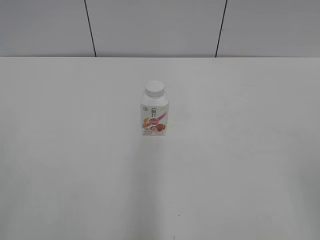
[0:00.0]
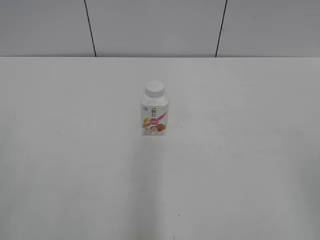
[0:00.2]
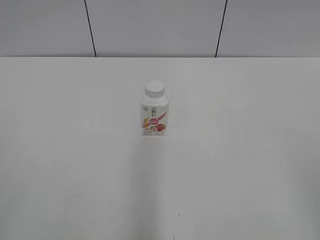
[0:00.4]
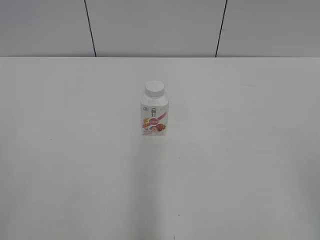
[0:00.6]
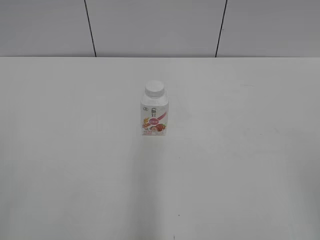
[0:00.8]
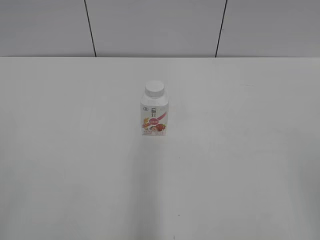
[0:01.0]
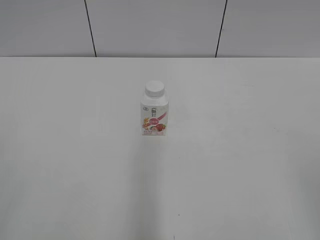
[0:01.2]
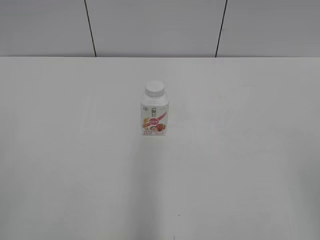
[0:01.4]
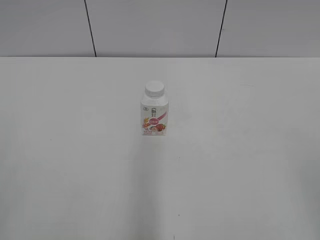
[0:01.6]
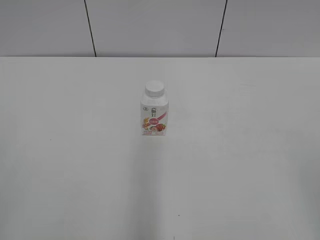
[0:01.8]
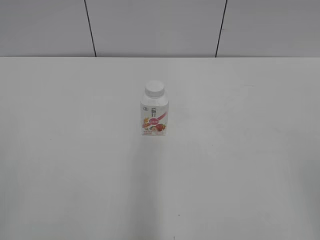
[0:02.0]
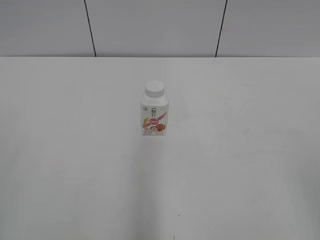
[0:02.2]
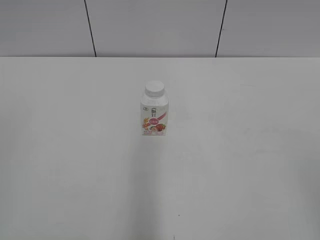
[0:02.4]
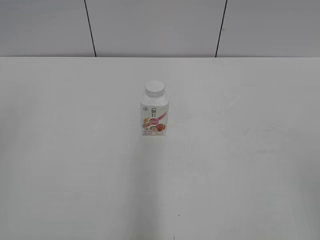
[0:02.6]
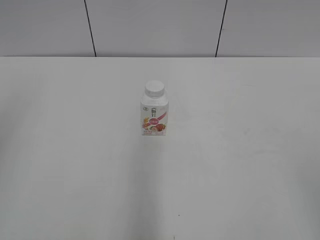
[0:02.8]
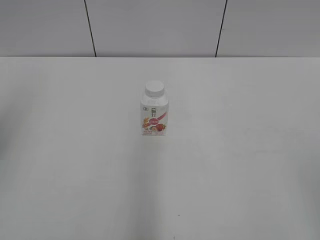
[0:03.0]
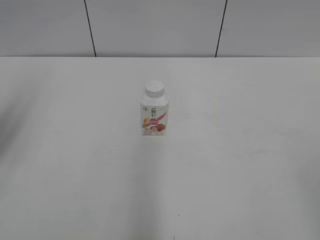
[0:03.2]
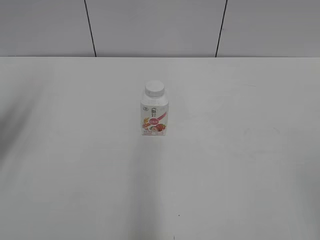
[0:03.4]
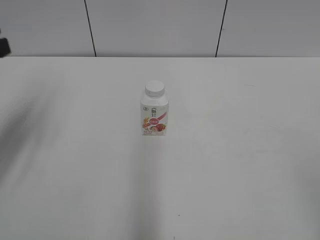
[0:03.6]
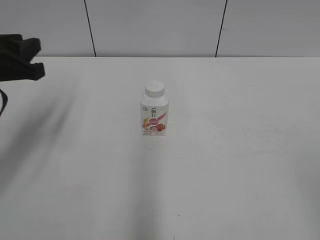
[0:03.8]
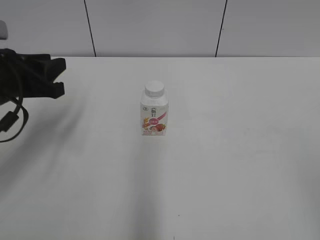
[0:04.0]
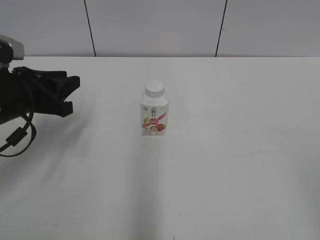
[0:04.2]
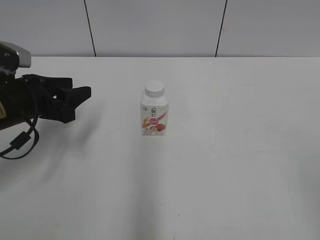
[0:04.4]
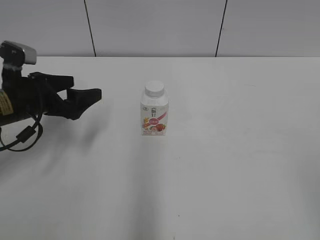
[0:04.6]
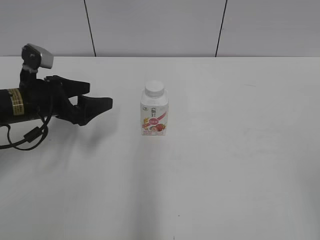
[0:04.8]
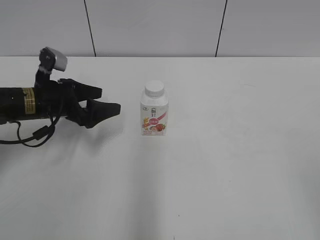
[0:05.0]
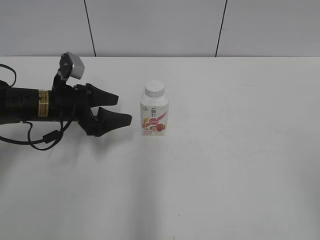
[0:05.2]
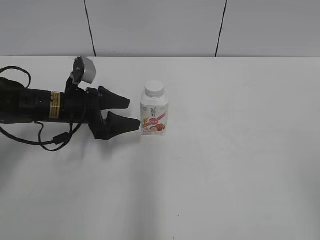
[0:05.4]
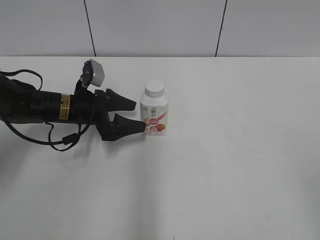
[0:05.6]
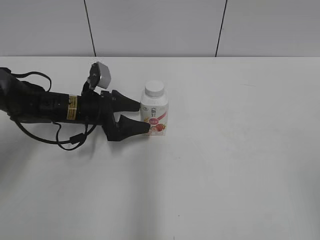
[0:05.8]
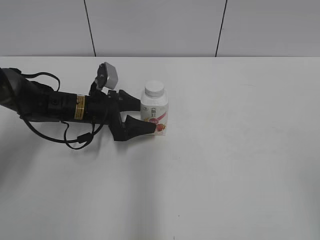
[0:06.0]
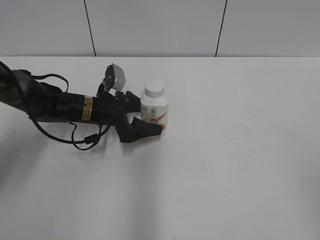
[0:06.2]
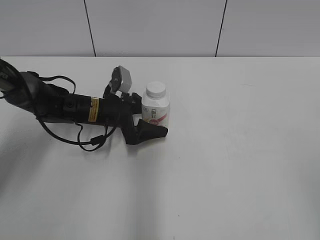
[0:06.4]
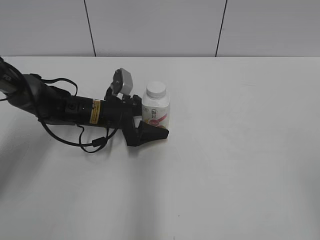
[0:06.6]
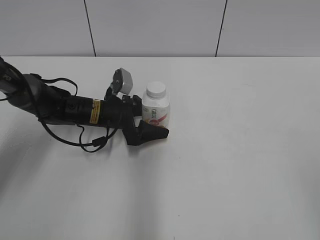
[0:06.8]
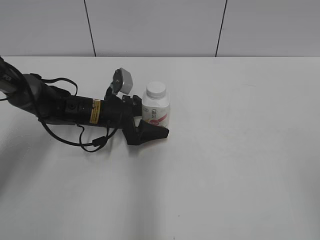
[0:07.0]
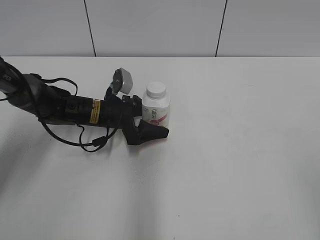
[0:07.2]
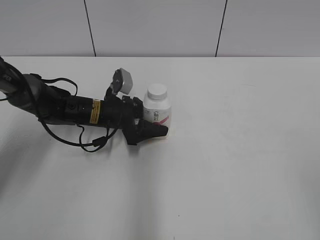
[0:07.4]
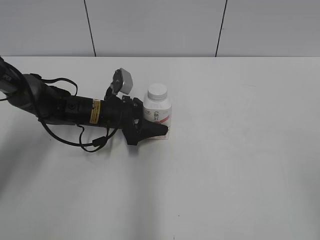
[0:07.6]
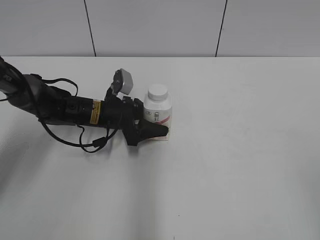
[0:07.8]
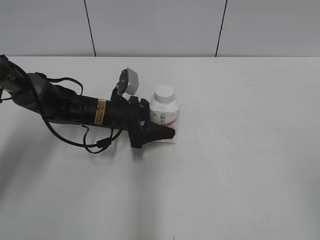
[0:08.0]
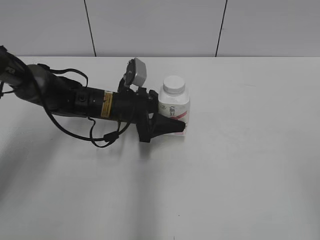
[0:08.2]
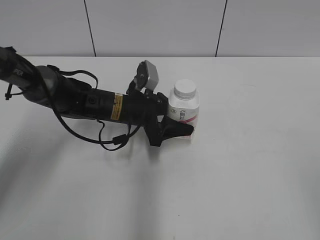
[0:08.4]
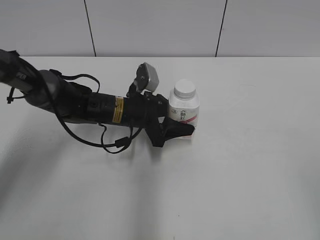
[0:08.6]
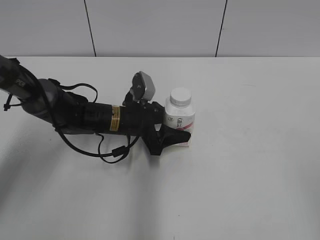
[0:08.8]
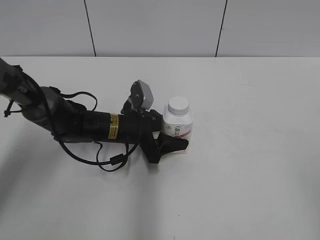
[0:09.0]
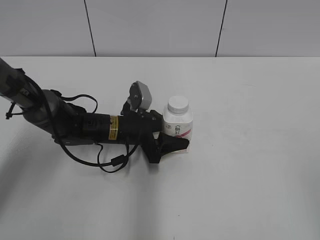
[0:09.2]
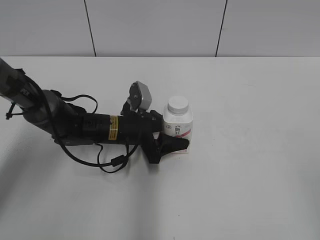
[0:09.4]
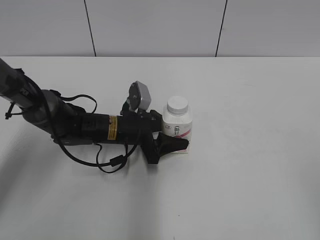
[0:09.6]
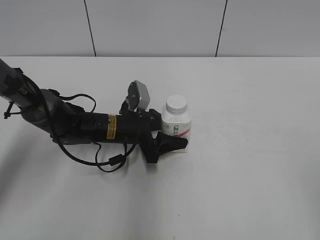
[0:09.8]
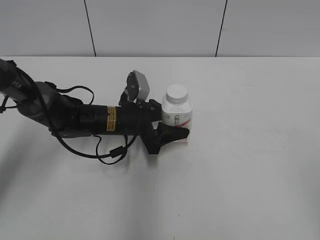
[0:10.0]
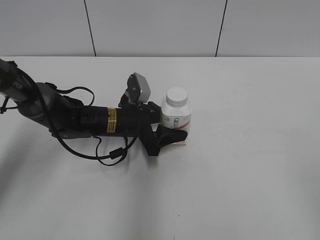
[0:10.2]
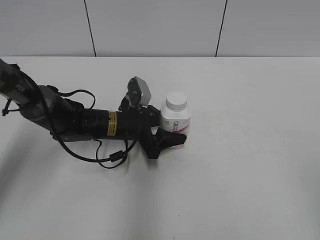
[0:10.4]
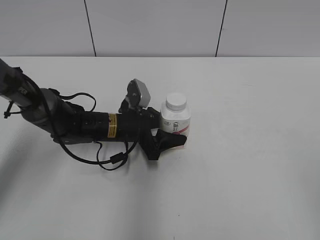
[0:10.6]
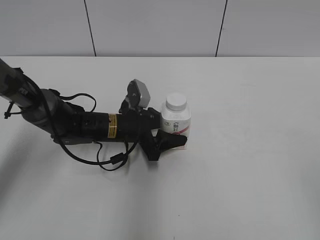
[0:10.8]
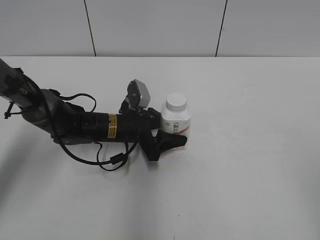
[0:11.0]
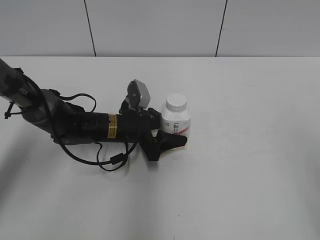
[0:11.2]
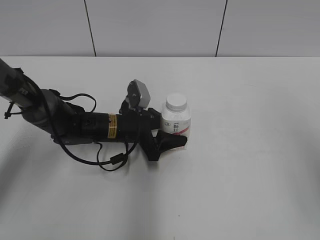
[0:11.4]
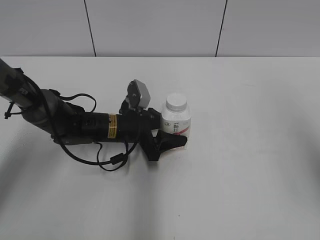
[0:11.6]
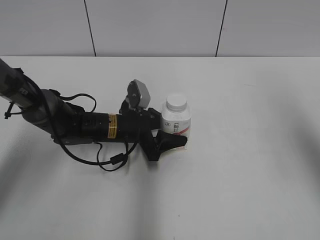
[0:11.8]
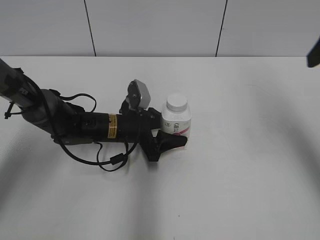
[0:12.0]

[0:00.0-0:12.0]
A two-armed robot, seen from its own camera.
Step, 0:00.0 to 0:07.4: Grab the Yili Changqing with the left hand.
Step, 0:07.6 to 0:11.4: Move the Yili Changqing from left to right.
0:03.0 to 0:04.4: The left gripper shifts about 25 cm downward and forward.
0:04.4 to 0:06.0: The left gripper goes about 15 cm forward, downward and to the right, and opens its fingers.
0:06.0 to 0:07.6: The left gripper closes.
0:07.6 to 0:09.0: The left gripper moves some 5 cm.
0:09.0 to 0:10.4: The grippers make only small movements.
0:10.4 to 0:12.0: The right gripper is displaced forward by some 25 cm.

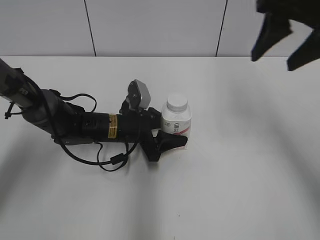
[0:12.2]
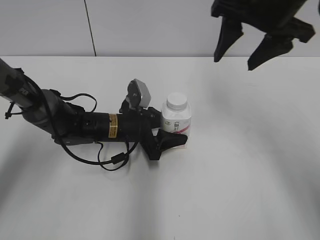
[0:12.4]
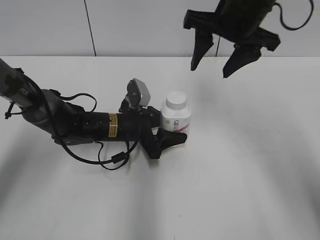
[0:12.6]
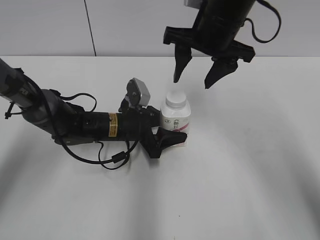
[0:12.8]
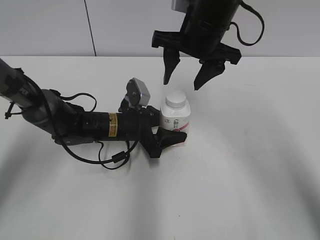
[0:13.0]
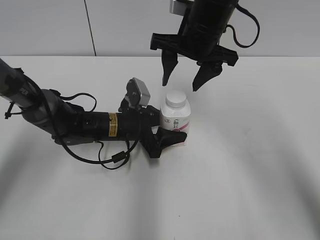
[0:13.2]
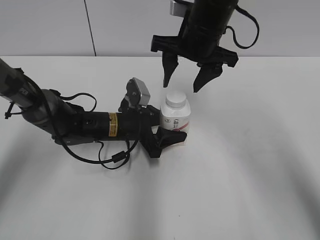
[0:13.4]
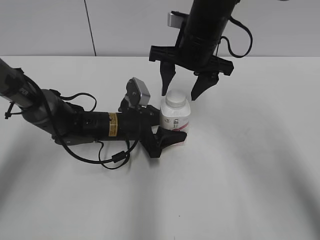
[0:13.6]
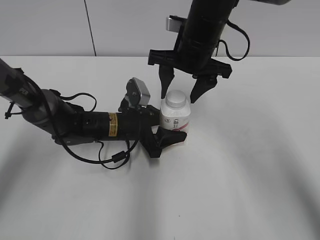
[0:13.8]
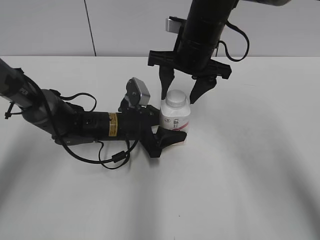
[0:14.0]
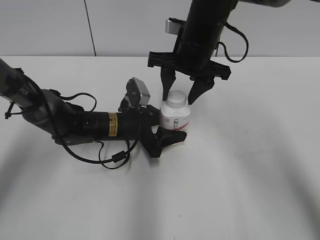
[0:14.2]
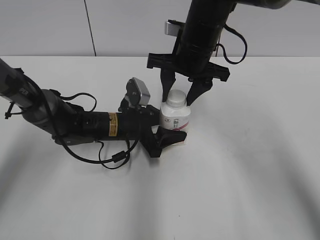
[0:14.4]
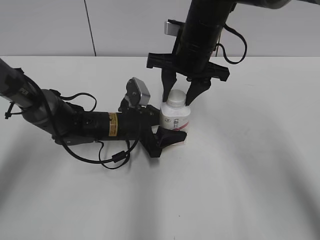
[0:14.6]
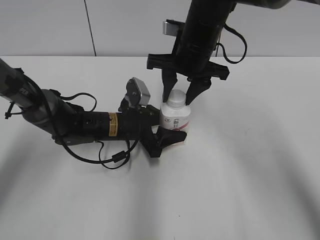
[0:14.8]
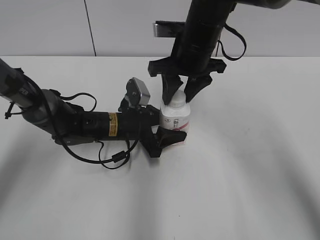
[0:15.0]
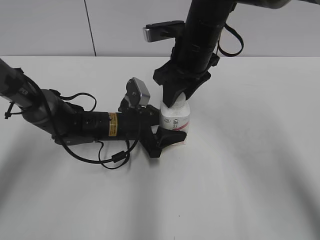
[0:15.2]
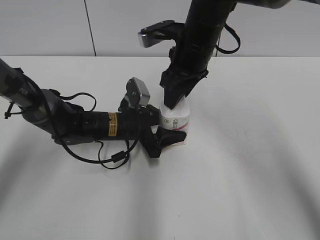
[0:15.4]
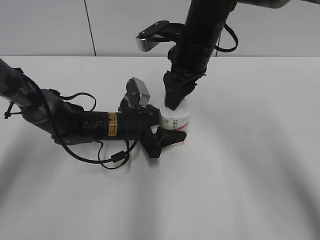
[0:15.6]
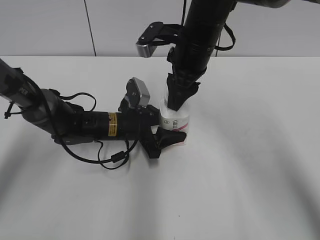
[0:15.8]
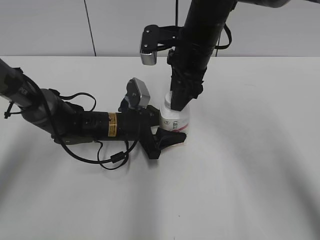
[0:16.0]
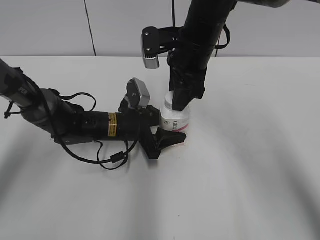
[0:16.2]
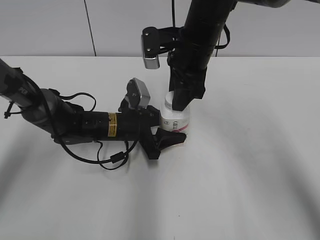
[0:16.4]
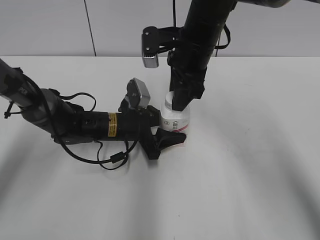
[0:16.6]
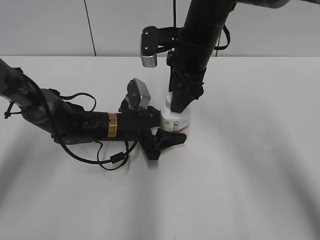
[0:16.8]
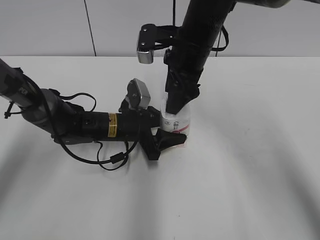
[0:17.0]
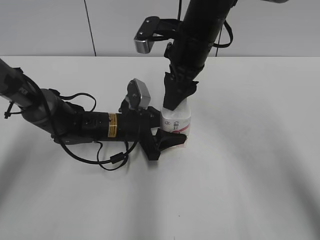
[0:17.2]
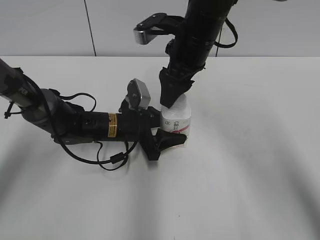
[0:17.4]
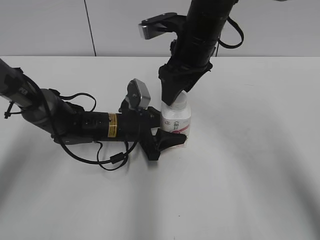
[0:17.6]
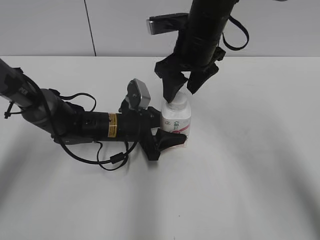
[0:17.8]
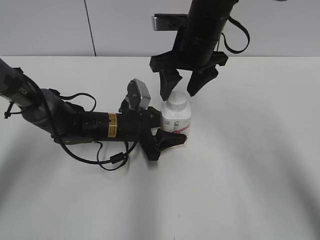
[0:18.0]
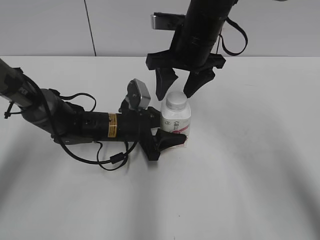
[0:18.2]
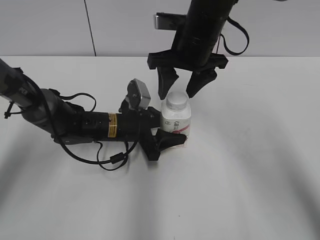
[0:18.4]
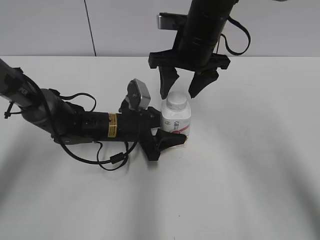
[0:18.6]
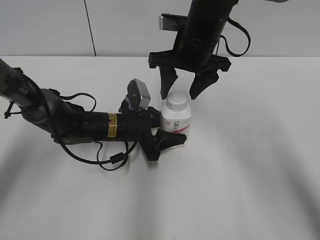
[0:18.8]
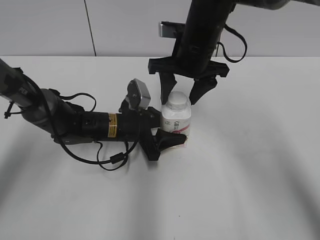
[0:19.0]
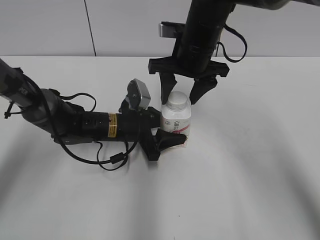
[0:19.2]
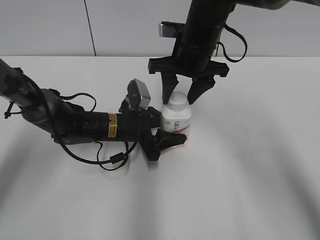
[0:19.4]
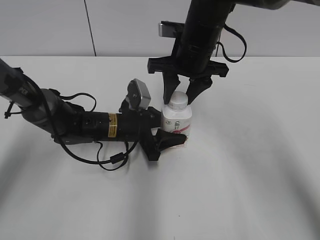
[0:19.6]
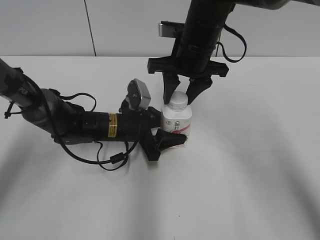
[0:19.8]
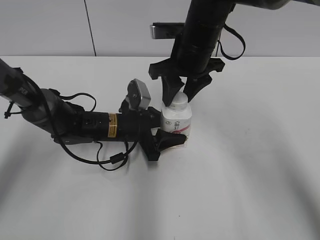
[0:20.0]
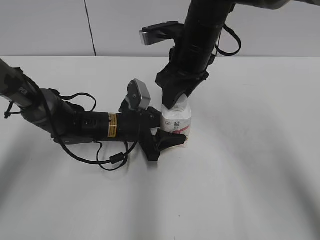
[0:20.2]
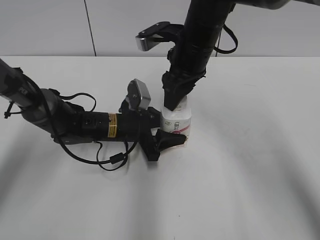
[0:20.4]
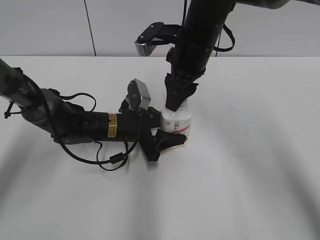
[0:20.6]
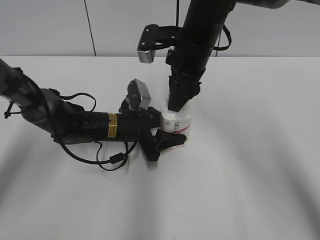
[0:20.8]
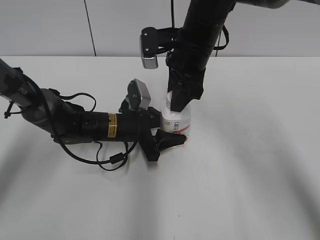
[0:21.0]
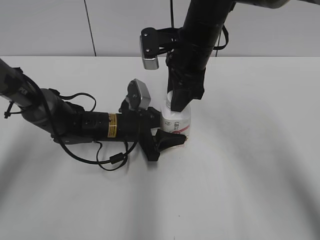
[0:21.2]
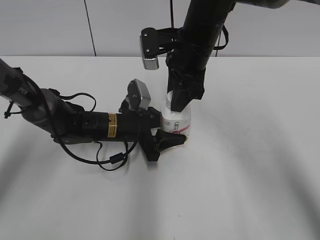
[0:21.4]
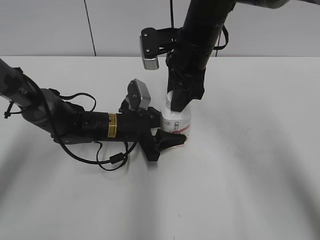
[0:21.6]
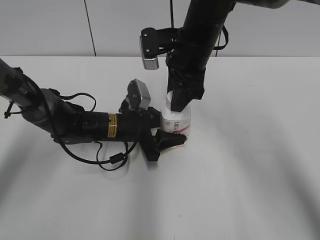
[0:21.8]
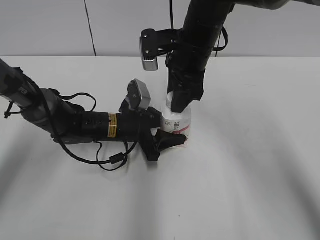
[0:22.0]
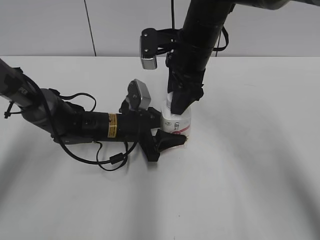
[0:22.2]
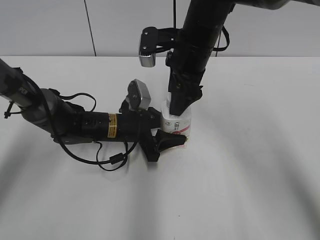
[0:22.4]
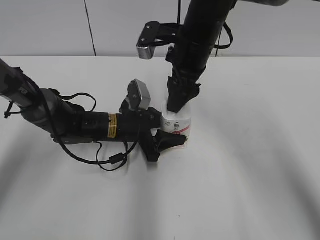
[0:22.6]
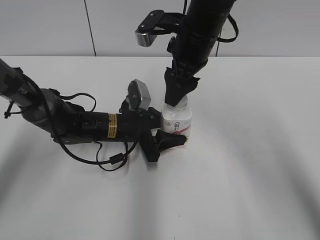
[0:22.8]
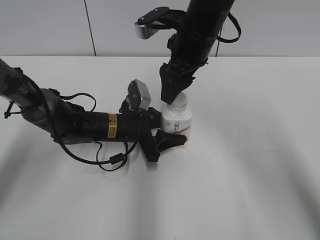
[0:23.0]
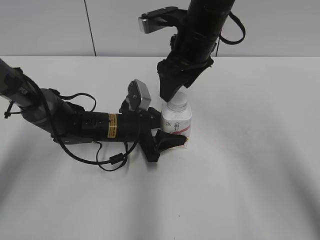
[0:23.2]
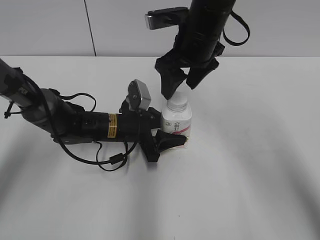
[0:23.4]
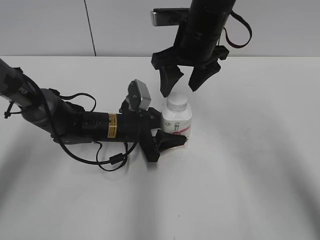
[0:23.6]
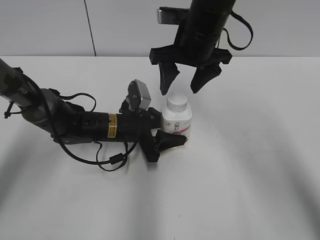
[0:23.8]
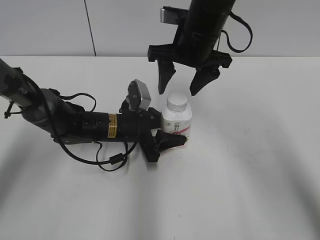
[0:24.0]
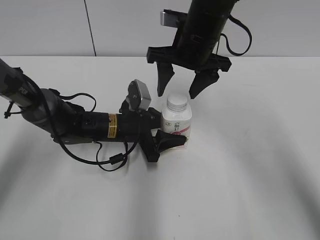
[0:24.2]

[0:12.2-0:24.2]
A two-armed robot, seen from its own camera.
0:12.2 to 0:13.8: The right gripper heads to the left, downward and forward, covering roughly 20 cm.
0:13.8 to 0:15.2: The right gripper closes its fingers.
0:16.6 to 0:18.2: The right gripper opens its fingers.
0:18.2 to 0:19.8: The right gripper closes up.
0:21.2 to 0:22.6: The right gripper opens its fingers.
